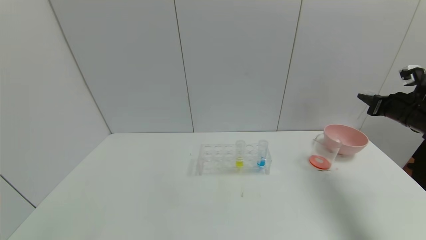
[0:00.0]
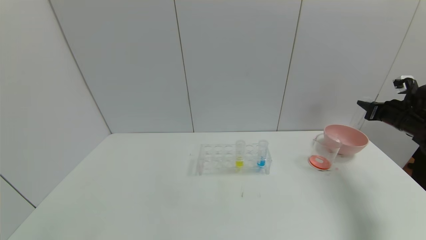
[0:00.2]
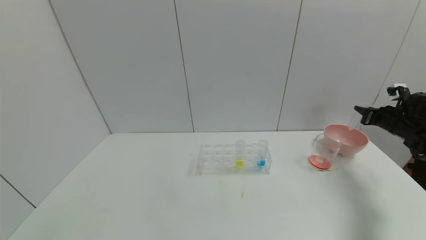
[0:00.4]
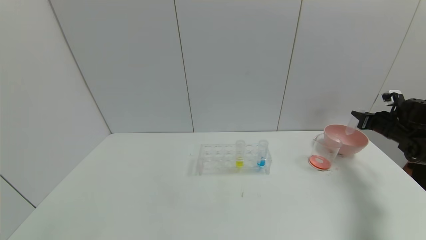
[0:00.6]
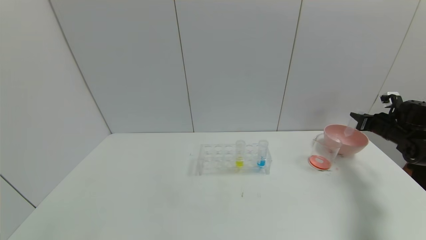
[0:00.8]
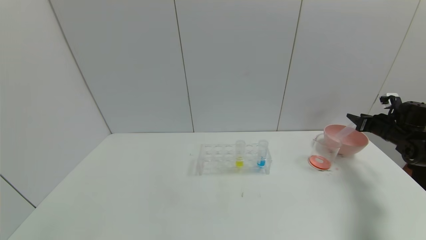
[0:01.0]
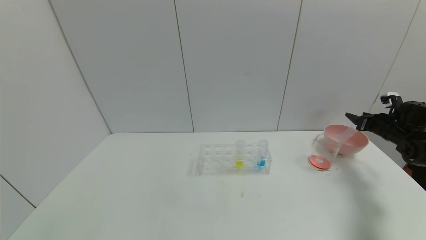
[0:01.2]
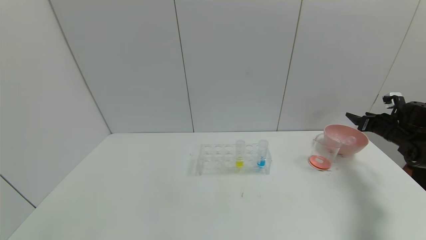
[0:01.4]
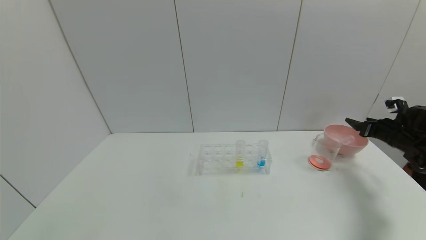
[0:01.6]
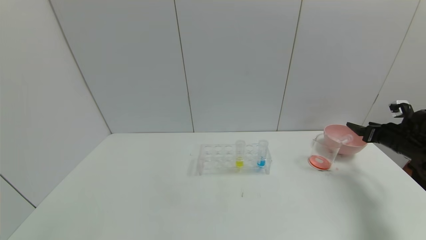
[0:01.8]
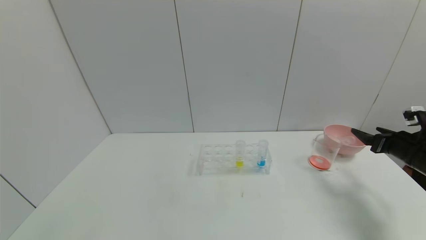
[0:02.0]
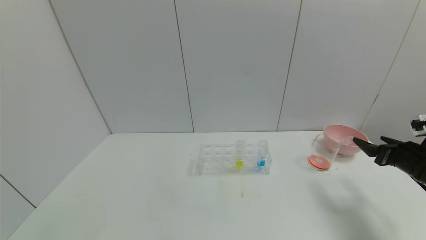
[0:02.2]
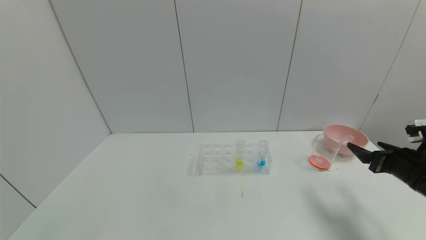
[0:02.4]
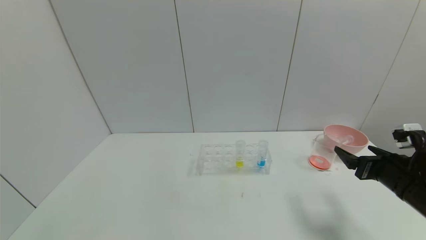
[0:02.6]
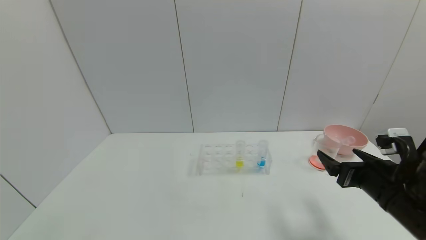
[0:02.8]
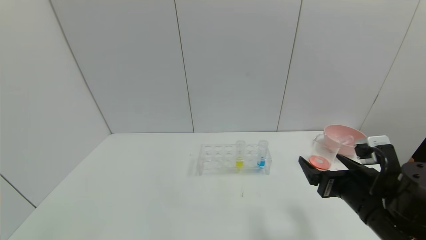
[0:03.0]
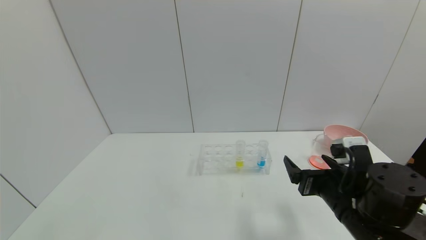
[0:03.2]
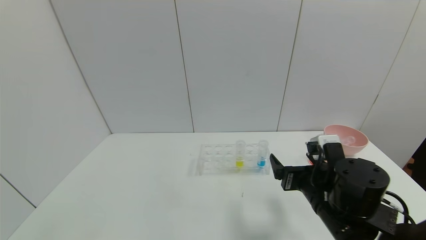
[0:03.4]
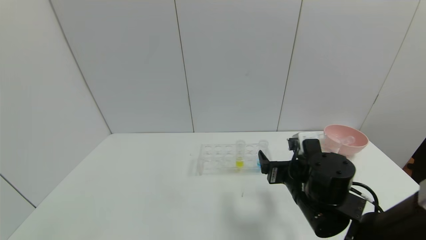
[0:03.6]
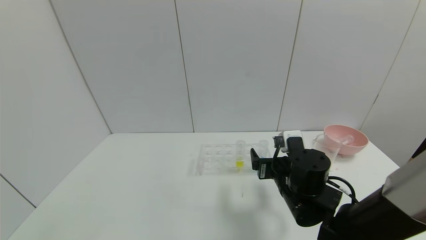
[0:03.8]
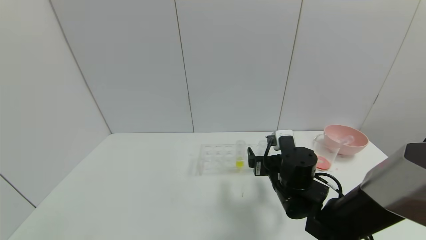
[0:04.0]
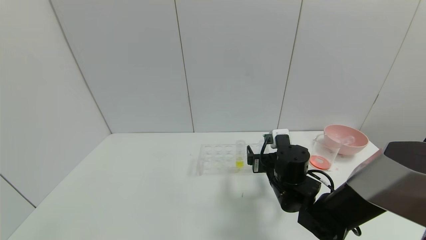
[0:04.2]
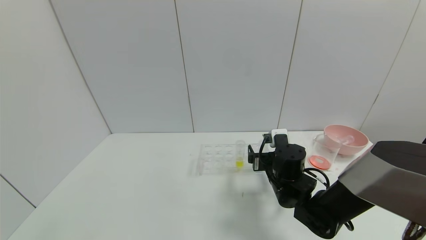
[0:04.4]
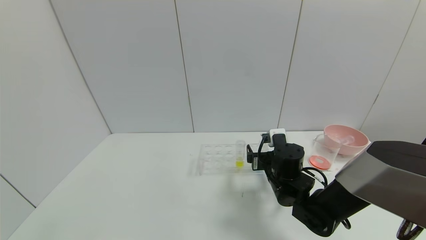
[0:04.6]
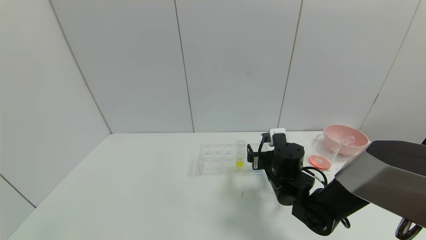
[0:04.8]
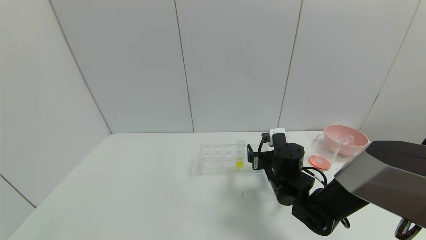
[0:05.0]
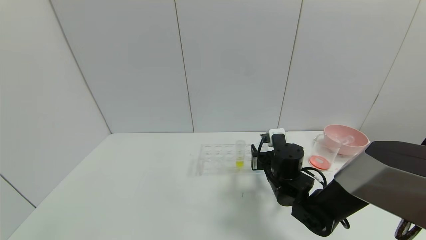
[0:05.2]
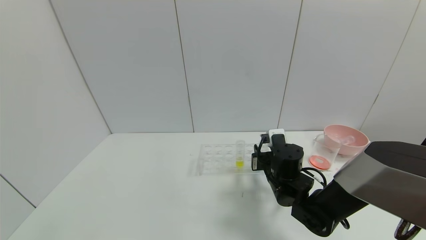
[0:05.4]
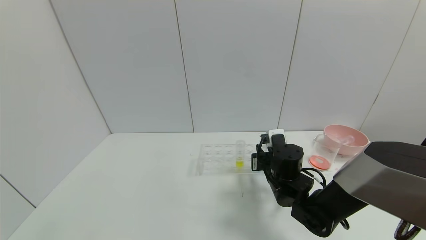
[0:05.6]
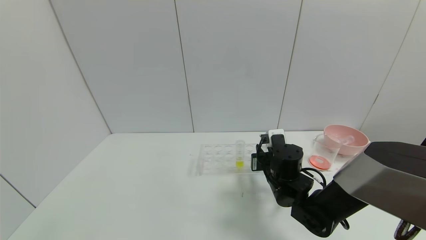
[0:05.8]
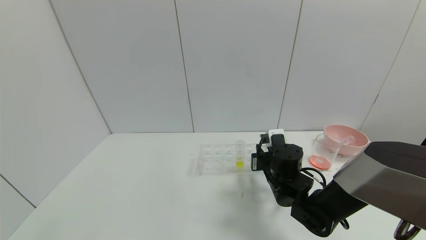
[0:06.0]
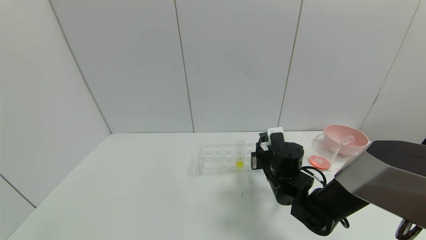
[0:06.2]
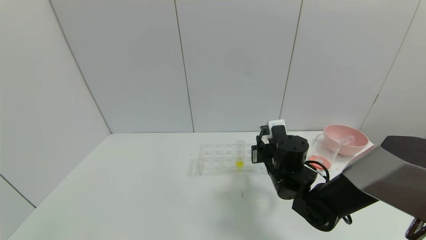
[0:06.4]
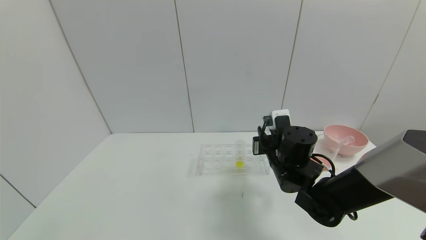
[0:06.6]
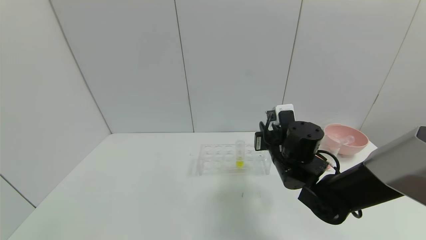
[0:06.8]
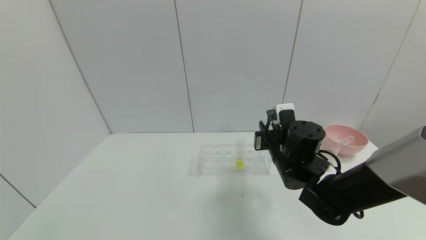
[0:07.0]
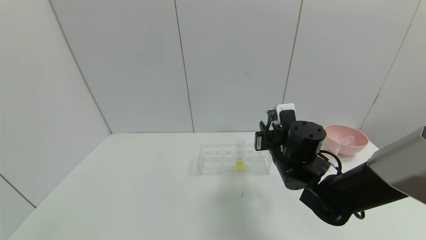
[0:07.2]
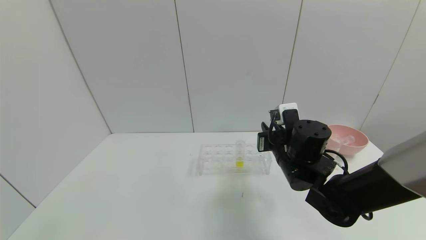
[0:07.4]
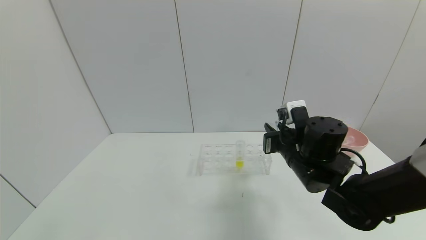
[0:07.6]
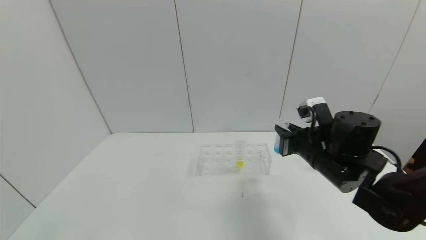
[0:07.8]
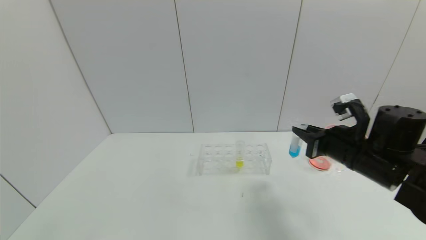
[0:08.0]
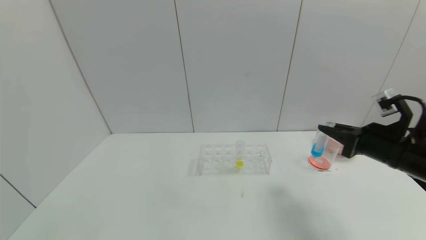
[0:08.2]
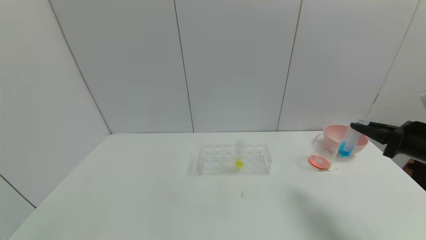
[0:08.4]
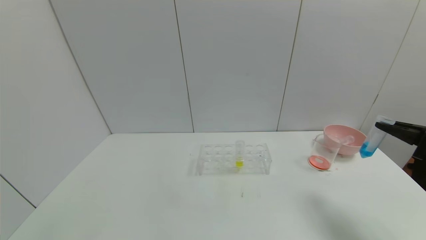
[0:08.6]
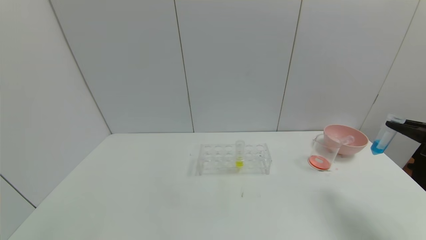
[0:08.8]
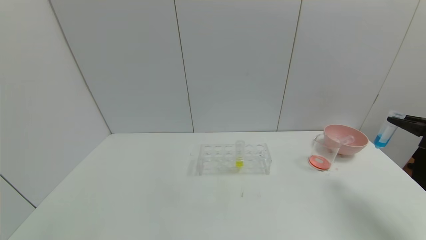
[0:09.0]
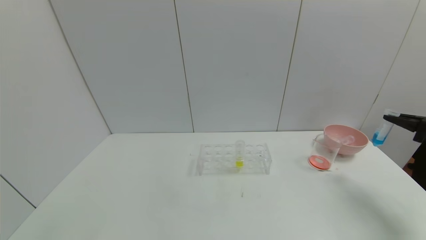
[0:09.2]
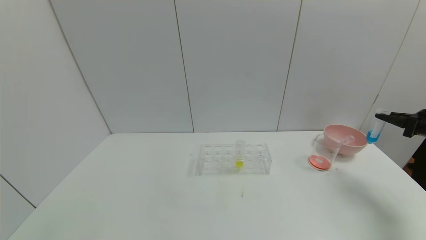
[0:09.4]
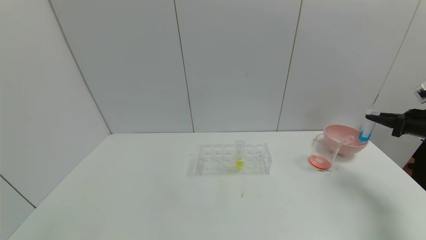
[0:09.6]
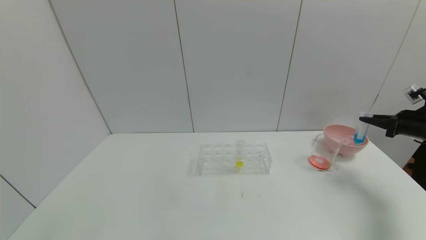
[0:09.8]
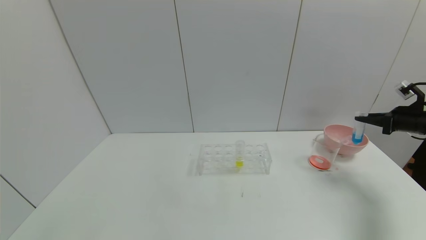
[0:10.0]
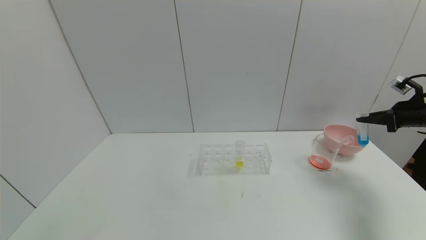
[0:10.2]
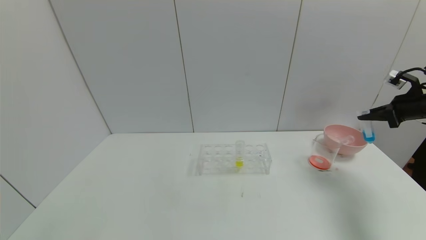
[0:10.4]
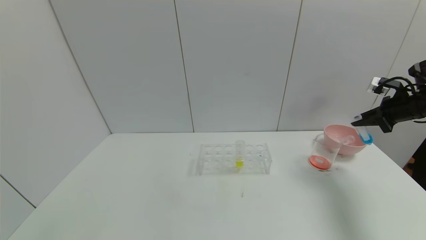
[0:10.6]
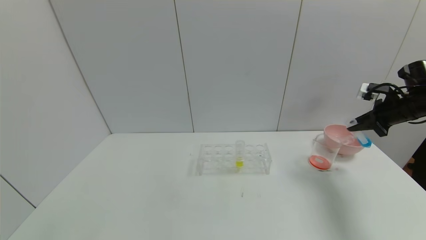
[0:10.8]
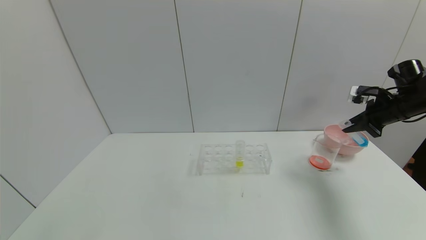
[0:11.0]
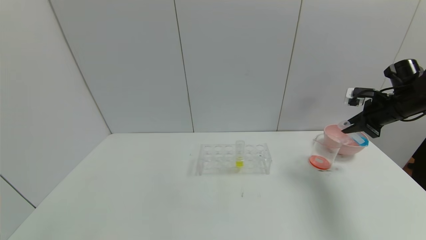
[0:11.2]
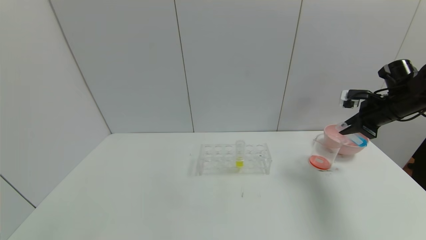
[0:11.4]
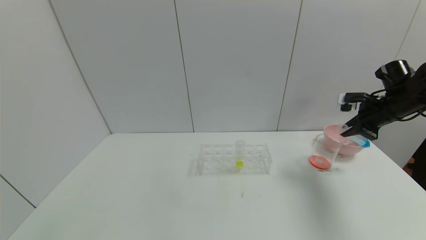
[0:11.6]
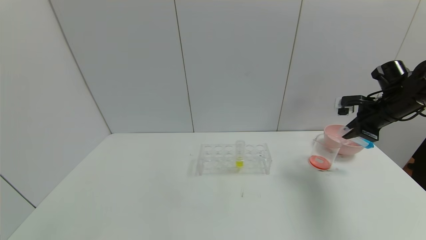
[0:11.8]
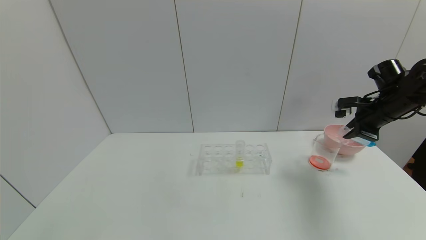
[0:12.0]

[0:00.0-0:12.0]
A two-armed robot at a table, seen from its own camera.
Task of the whole recording: pick up the test tube with red pigment and the test tube with blue pigment by grippers and pour them into the container.
Step, 1.4 to 5.6 s: Grasp the blue reagent with the right gripper.
0.0 to 1.6 s: The right gripper goes about 10 cm downward, and opens.
1.6 to 3.0 s: The right gripper shifts about 35 cm to the left and backward.
3.0 to 4.4 s: The right gripper is displaced forward, to the left and downward by about 15 cm.
4.4 to 6.0 s: The right gripper closes its fingers.
6.0 to 7.6 s: The right gripper travels upward by approximately 10 cm.
7.6 to 9.0 s: The right gripper shifts roughly 35 cm to the right.
9.0 to 10.4 s: The right gripper moves forward, roughly 10 cm.
10.4 to 12.0 s: The right gripper travels to the left by some 10 cm.

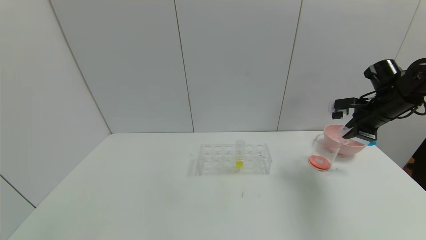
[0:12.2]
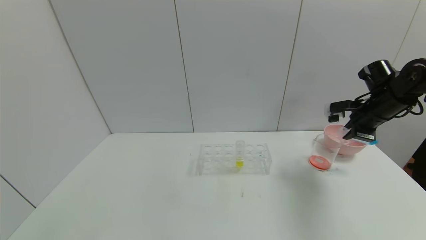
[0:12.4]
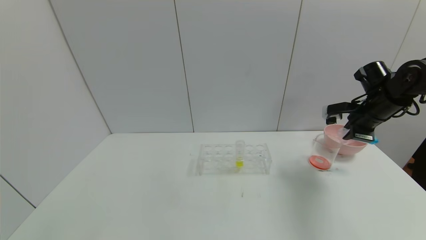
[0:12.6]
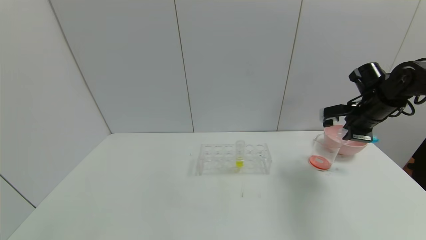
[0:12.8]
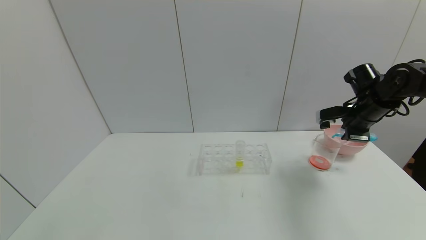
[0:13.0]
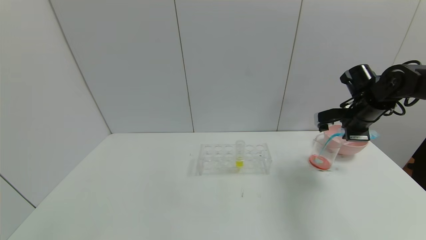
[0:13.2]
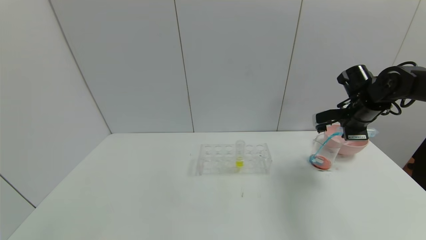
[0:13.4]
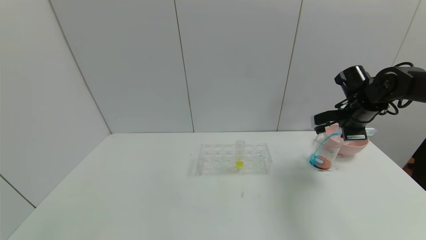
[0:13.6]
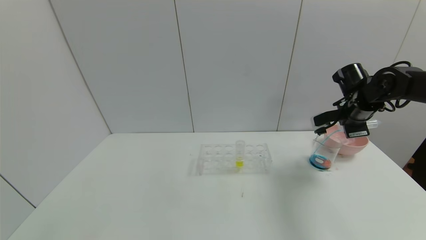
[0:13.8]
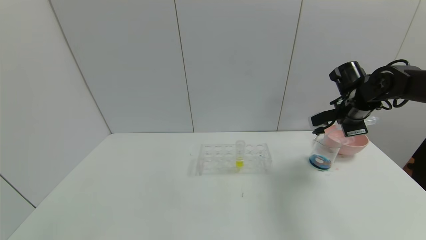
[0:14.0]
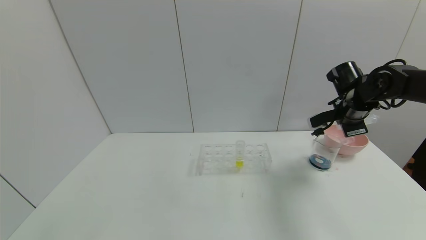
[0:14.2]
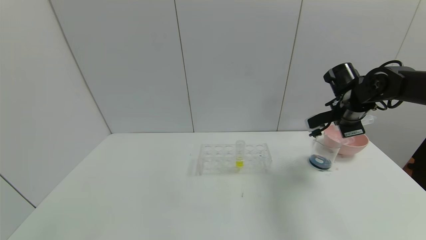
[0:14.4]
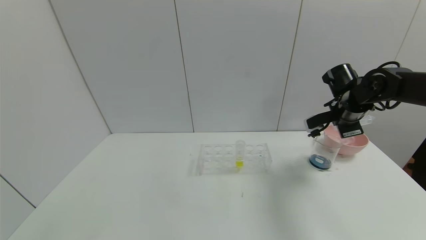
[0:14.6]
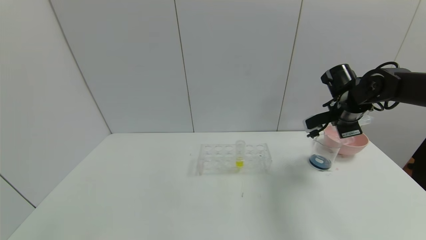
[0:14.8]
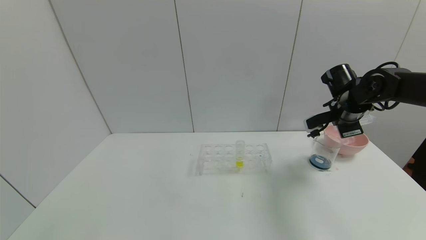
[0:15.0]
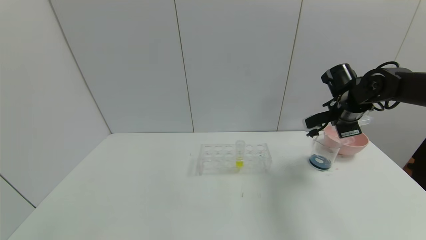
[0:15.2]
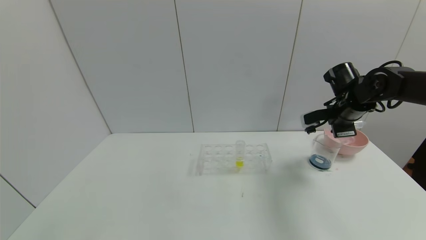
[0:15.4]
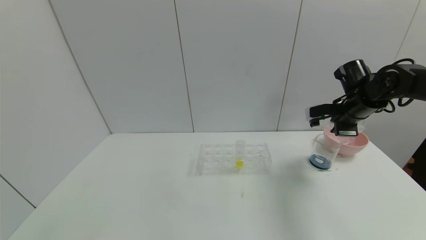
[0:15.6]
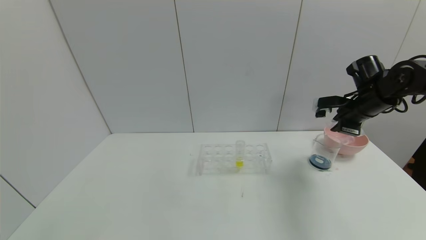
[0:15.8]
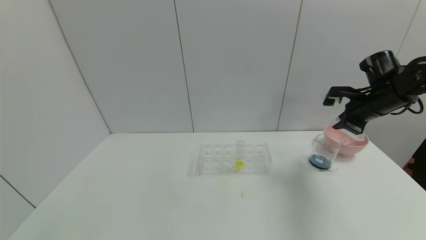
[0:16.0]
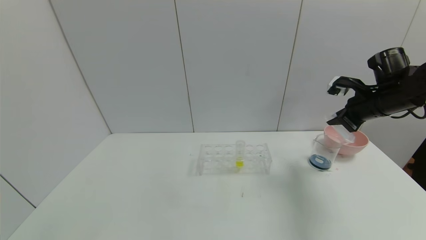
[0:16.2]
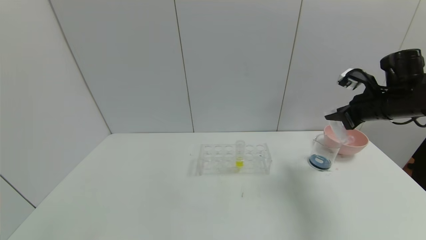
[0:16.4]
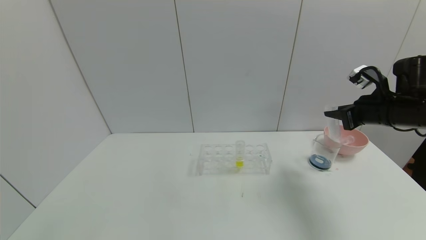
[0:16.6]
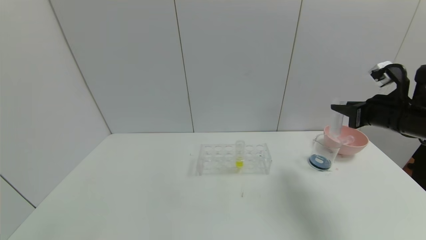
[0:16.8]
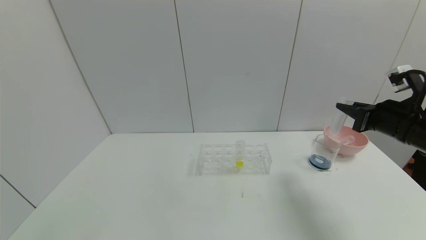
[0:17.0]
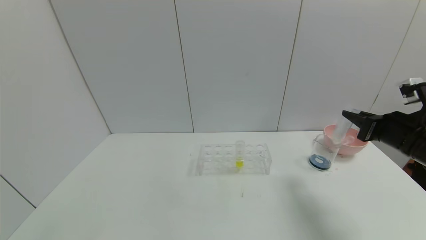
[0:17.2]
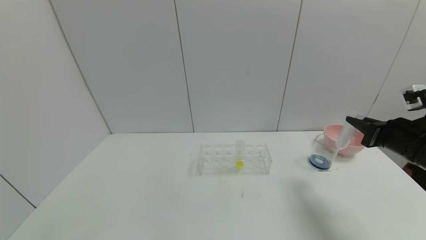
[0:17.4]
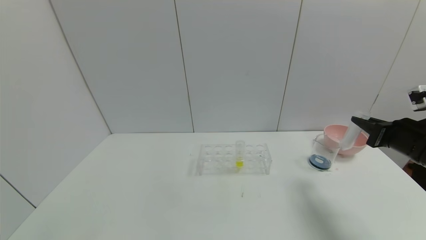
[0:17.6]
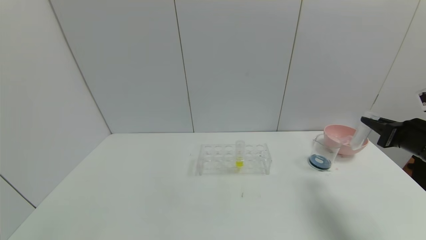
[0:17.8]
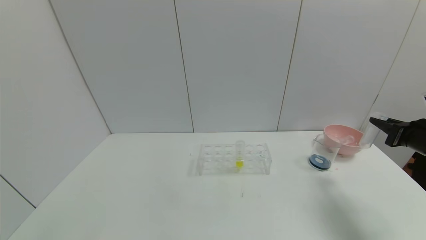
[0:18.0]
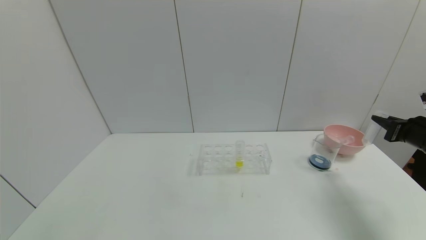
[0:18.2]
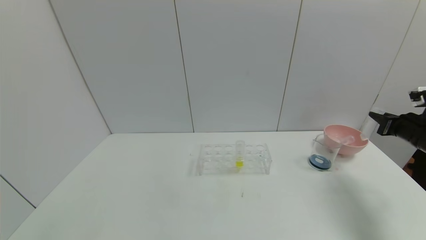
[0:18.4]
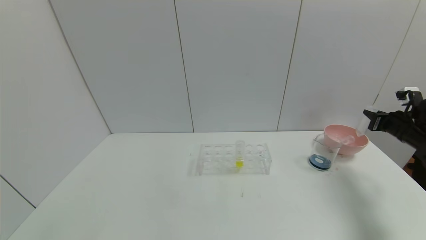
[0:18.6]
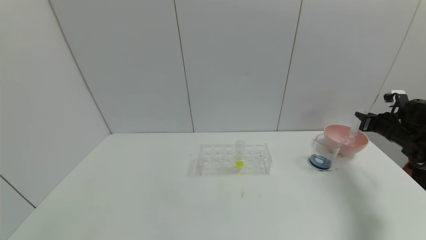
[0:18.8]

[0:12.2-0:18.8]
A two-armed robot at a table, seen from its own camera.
Task of the whole recording: pick up the test tube with red pigment and the test tube with blue pigment by grippers and pour them into the container.
Step, 12.2 to 14.8 s: Pour the blue reagent into the graduated cylinder with the right gripper.
12.2 to 13.8 s: The right gripper moves to the left, about 5 cm.
13.8 to 15.4 s: The grippers stay close to where they were, moving slightly.
15.4 to 17.2 s: The right gripper heads backward, covering roughly 15 cm.
17.2 to 18.8 s: The right gripper heads forward, to the right and downward, covering about 20 cm.
